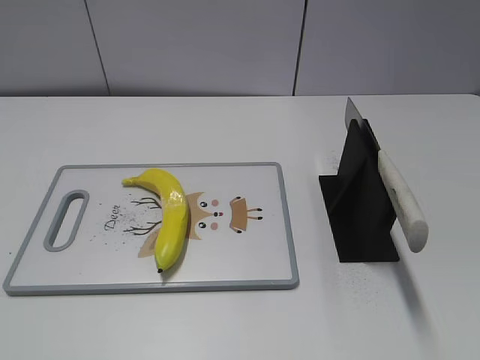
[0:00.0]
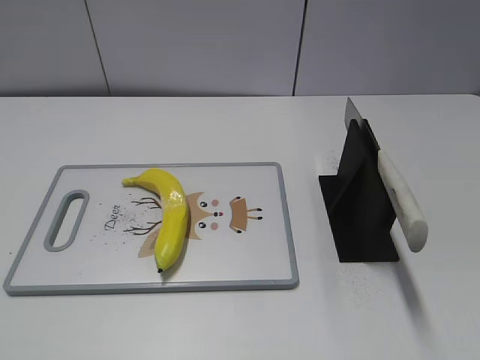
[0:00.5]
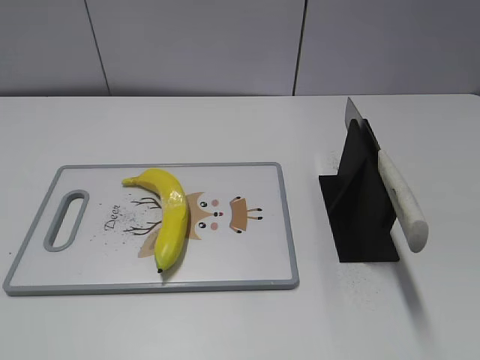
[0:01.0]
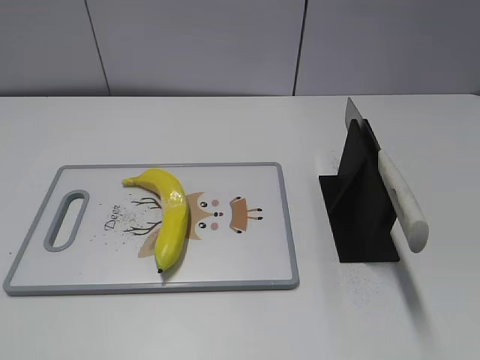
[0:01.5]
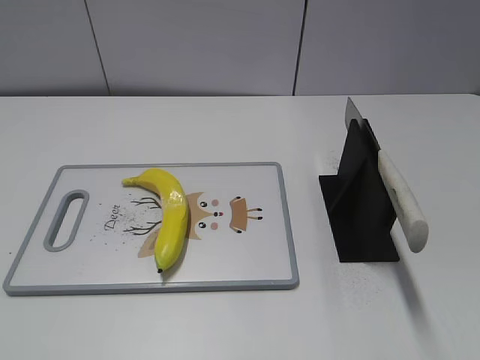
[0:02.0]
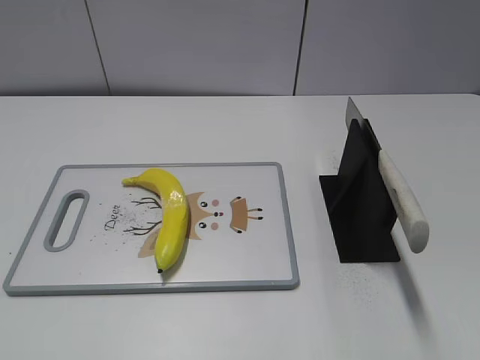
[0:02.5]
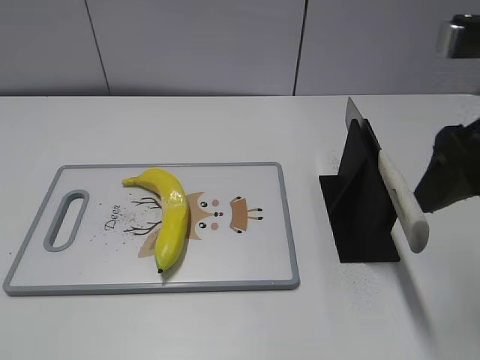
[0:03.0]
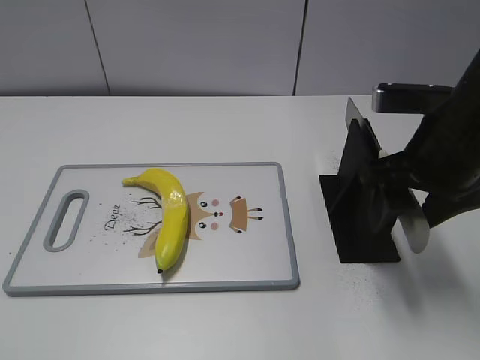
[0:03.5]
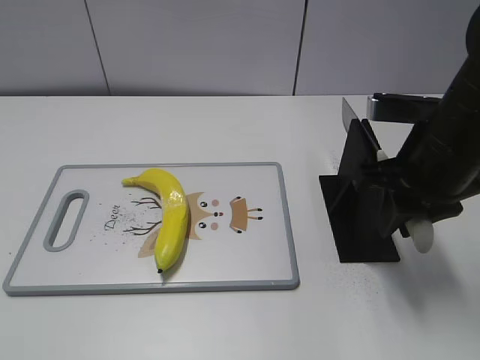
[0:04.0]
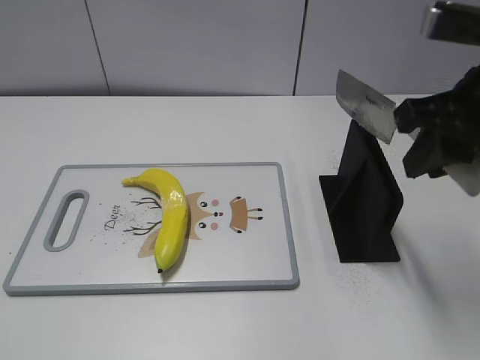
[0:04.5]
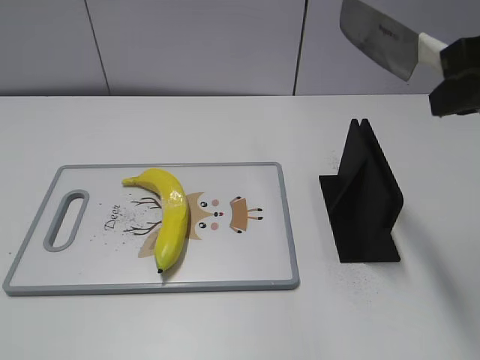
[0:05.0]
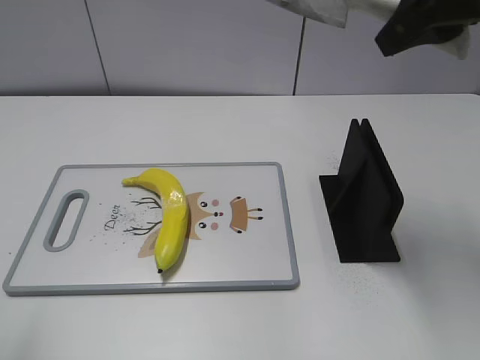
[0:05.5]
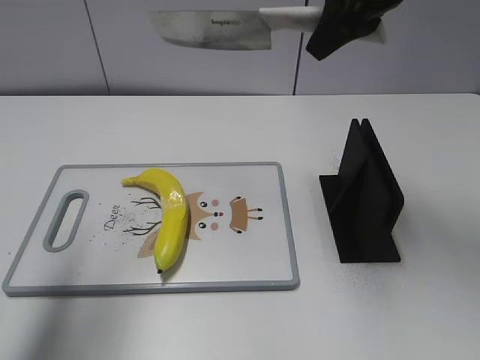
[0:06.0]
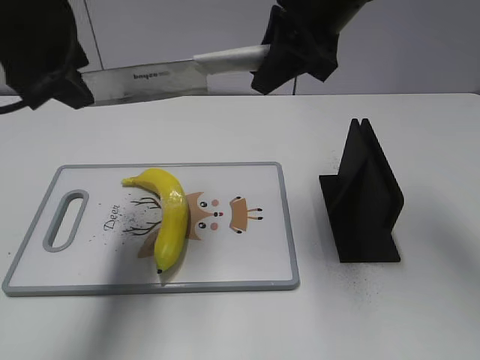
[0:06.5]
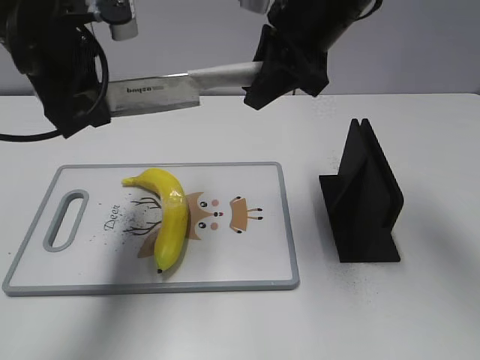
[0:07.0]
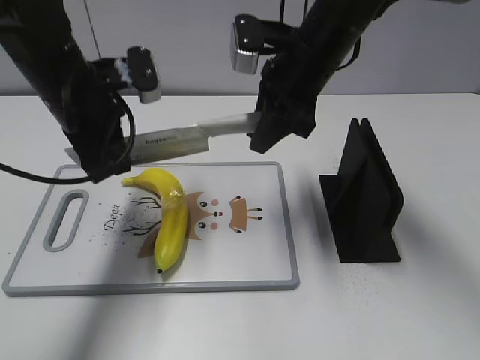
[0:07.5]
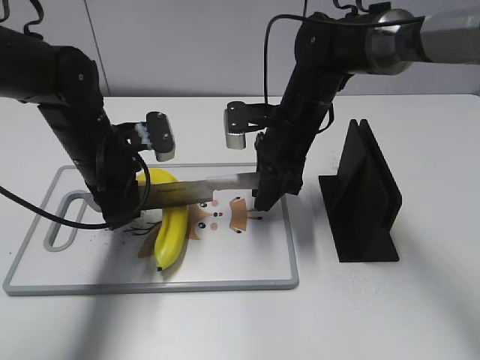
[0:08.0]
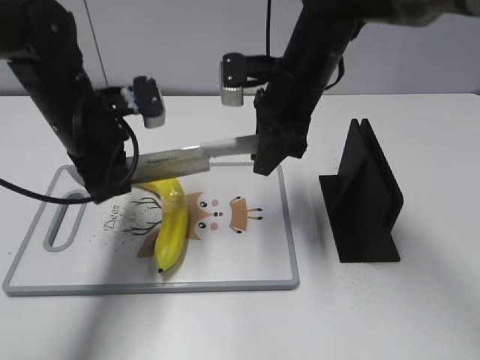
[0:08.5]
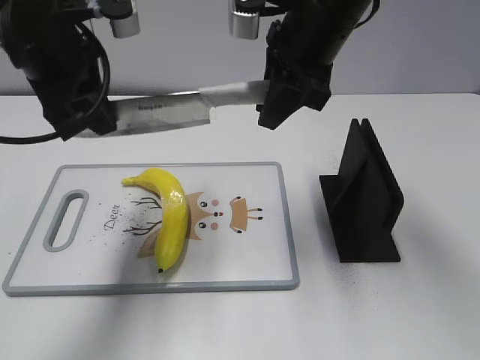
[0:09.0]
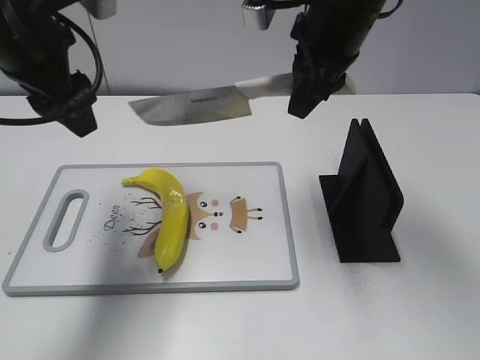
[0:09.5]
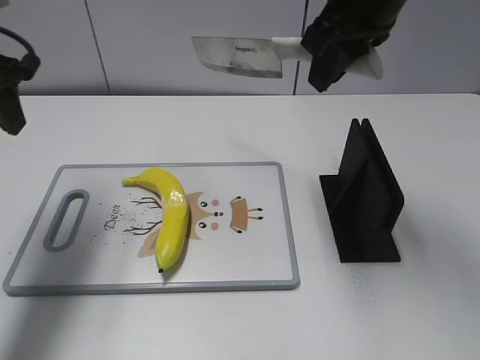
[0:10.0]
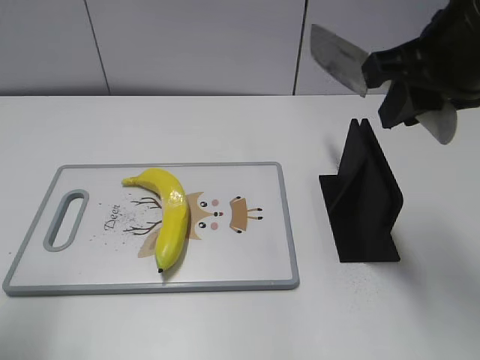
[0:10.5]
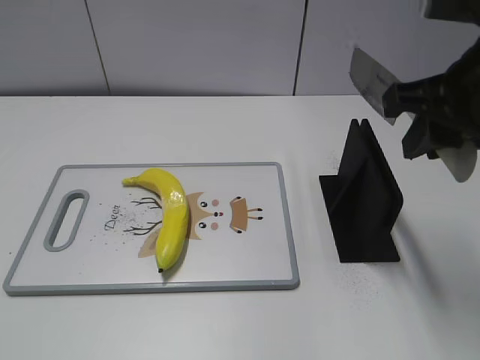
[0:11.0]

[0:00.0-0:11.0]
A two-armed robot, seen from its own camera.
Task of the whole recording: cut plastic banana.
Step, 0:00.0 to 0:04.5: Grab the knife handle with your right hand.
Step, 0:05.0 to 0:08.5: Lift the knife with your right hand.
Step, 0:09.0 to 0:10.0: Cut the banana with your right hand.
0:02.0 to 0:03.5: The right gripper is displaced forward, downward and to the left by approximately 25 cm.
0:03.5 to 0:05.5: The right gripper shifts some 15 cm upward, and closes.
0:05.5 to 0:07.5: The left gripper shifts approximately 30 cm forward, downward and to the right, and closes, while the right gripper goes some 20 cm downward, forward and to the left.
0:07.5 to 0:09.0: Both grippers travel together upward, some 5 cm.
0:09.0 to 0:11.0: The right gripper is displaced backward and to the right by about 15 cm. The left gripper moves backward and to the left, approximately 30 cm, and opens its fingers.

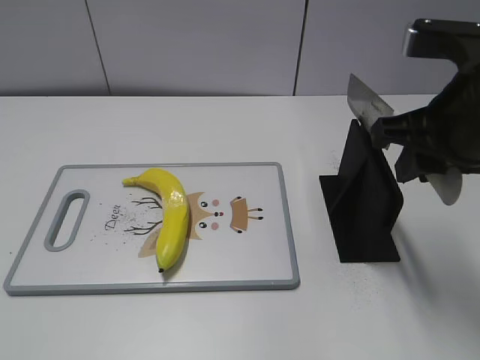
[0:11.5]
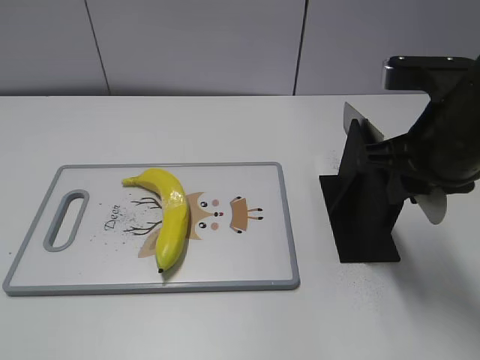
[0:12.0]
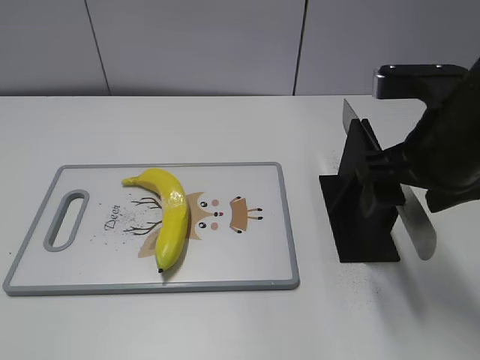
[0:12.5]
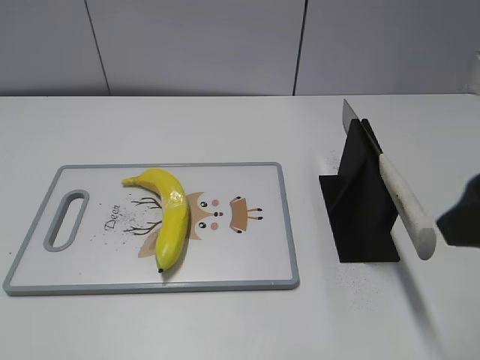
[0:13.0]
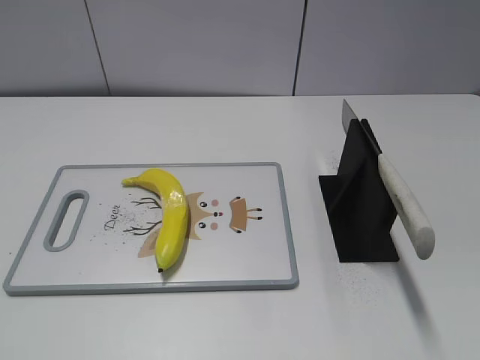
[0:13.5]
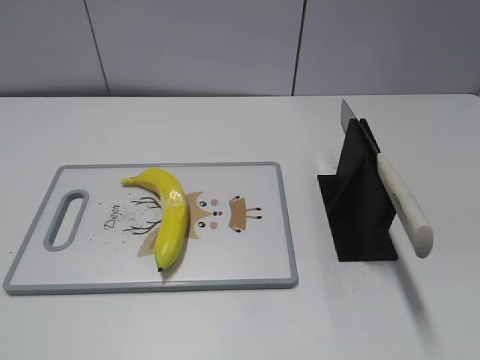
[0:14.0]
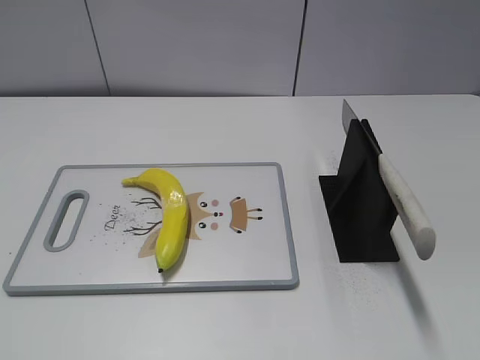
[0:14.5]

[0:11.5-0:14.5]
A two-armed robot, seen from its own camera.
Task of the whole recording: cut plastic banana.
0:11.5 to 0:13.0: The right gripper is displaced backward by about 10 cm, and opens.
0:13.0 to 0:14.5: The right gripper moves backward and to the right, about 20 cm.
